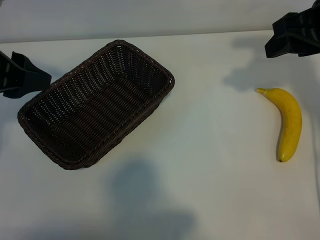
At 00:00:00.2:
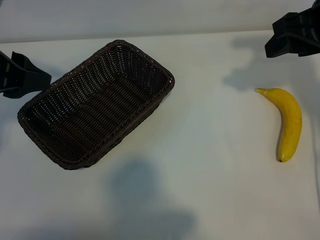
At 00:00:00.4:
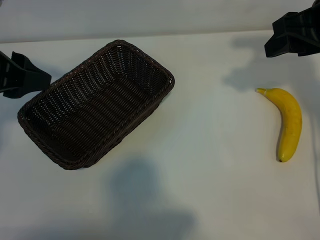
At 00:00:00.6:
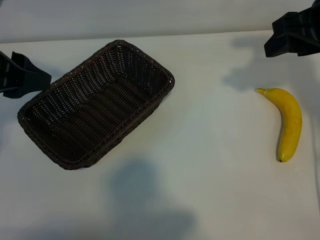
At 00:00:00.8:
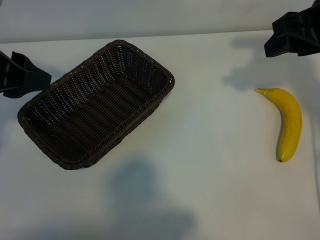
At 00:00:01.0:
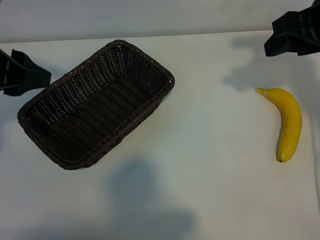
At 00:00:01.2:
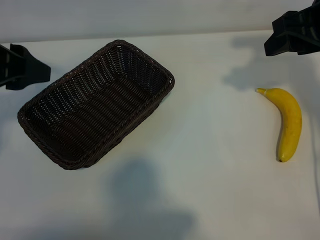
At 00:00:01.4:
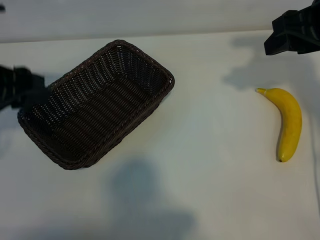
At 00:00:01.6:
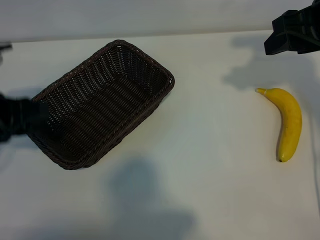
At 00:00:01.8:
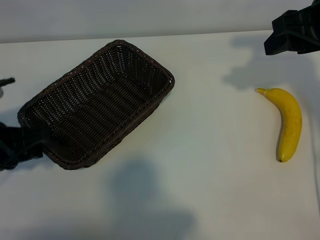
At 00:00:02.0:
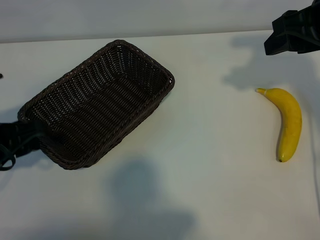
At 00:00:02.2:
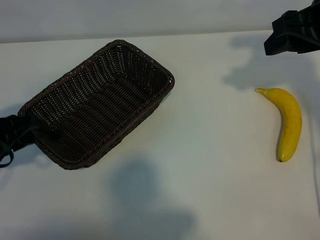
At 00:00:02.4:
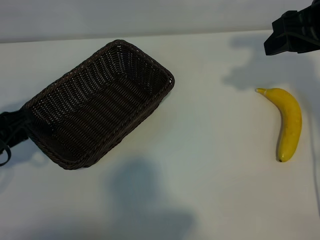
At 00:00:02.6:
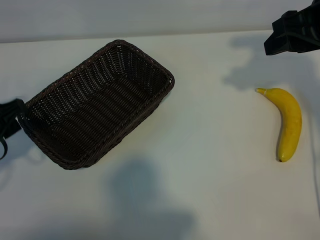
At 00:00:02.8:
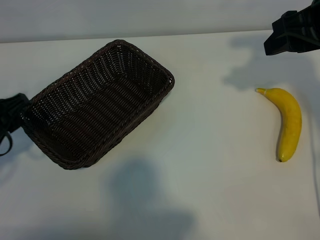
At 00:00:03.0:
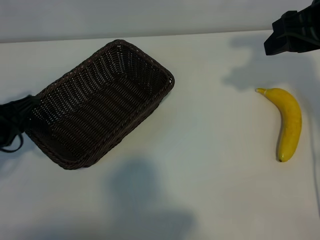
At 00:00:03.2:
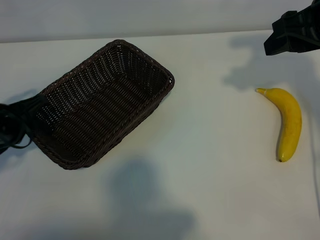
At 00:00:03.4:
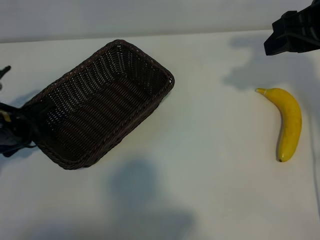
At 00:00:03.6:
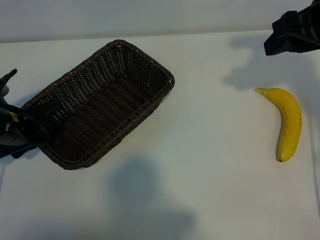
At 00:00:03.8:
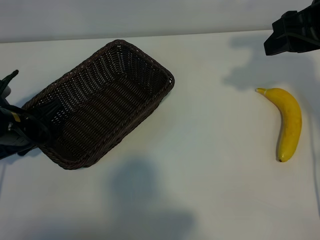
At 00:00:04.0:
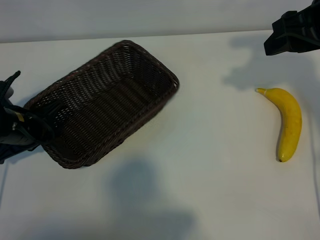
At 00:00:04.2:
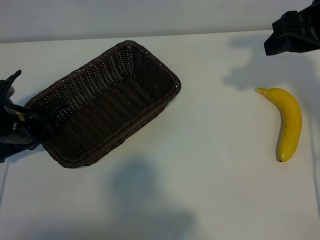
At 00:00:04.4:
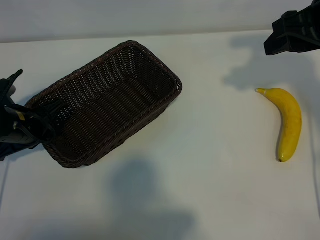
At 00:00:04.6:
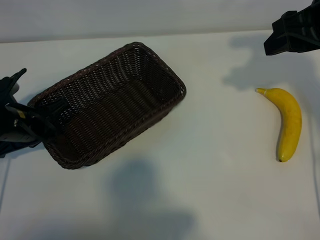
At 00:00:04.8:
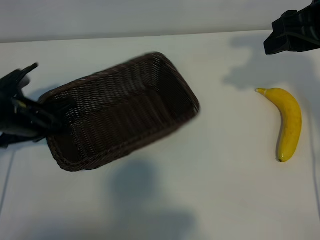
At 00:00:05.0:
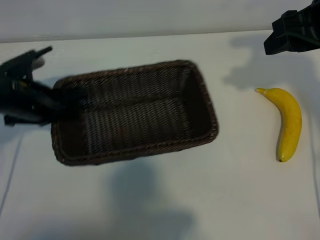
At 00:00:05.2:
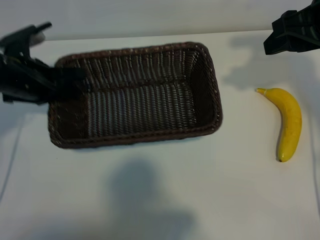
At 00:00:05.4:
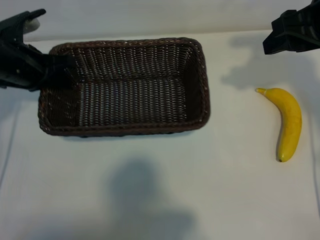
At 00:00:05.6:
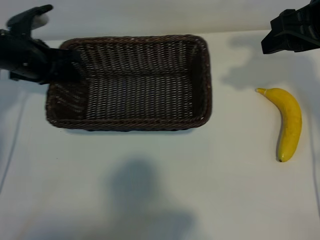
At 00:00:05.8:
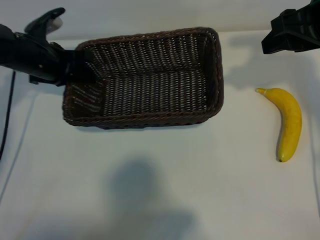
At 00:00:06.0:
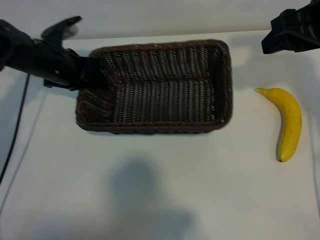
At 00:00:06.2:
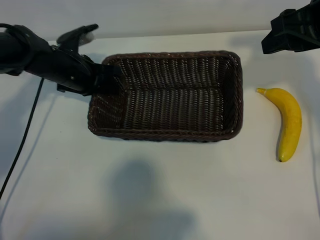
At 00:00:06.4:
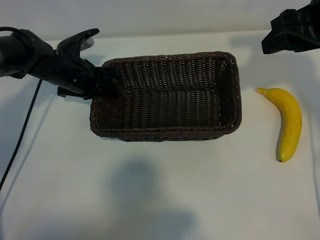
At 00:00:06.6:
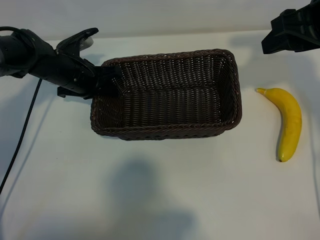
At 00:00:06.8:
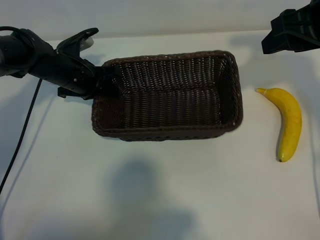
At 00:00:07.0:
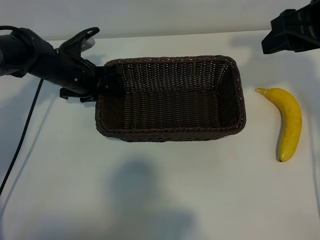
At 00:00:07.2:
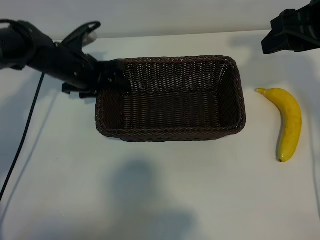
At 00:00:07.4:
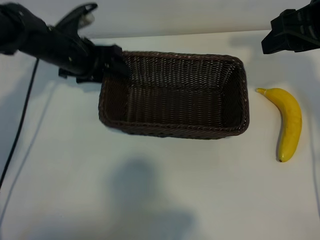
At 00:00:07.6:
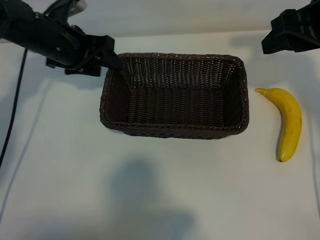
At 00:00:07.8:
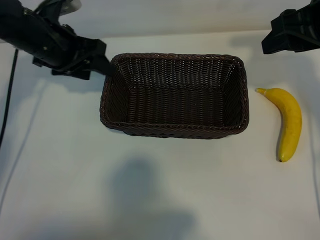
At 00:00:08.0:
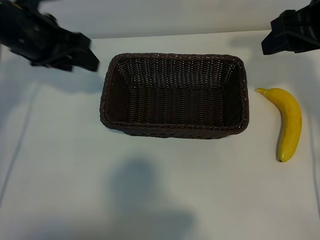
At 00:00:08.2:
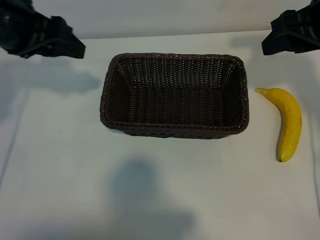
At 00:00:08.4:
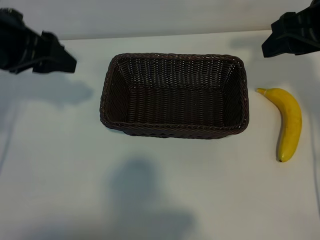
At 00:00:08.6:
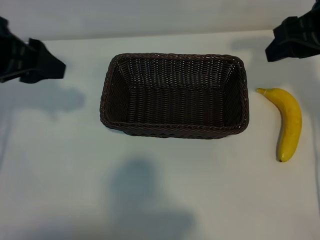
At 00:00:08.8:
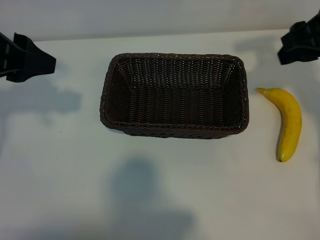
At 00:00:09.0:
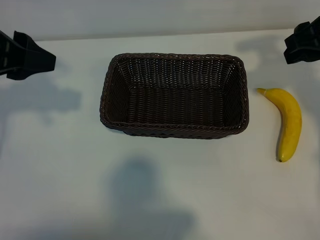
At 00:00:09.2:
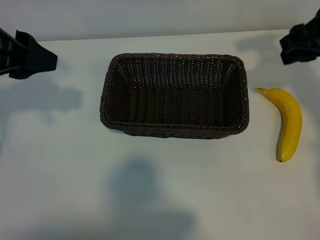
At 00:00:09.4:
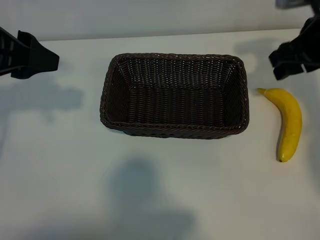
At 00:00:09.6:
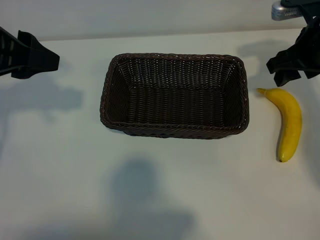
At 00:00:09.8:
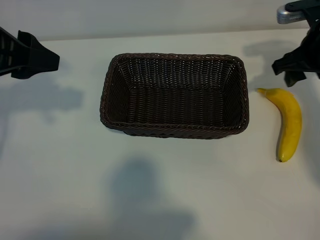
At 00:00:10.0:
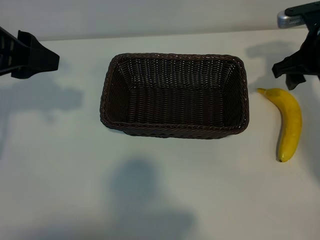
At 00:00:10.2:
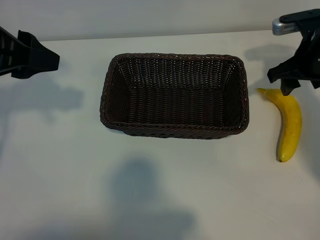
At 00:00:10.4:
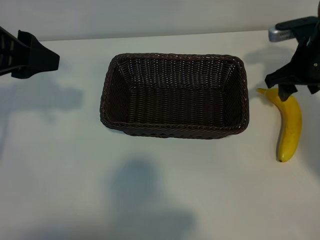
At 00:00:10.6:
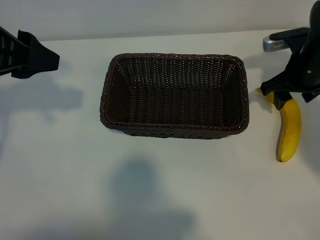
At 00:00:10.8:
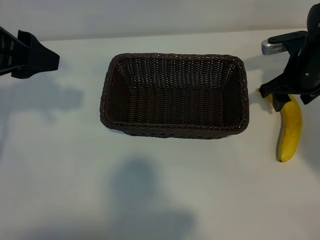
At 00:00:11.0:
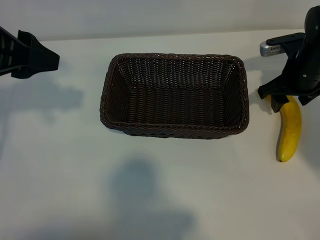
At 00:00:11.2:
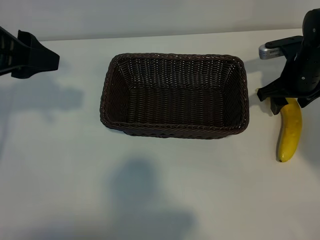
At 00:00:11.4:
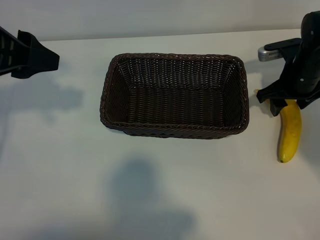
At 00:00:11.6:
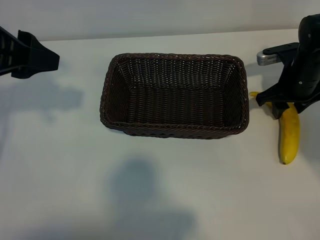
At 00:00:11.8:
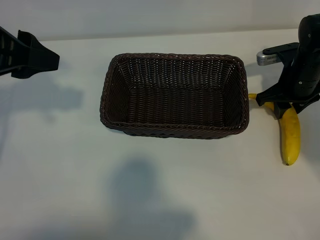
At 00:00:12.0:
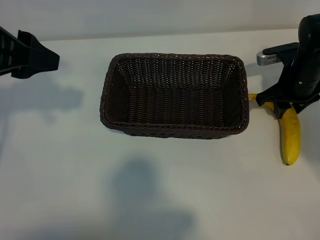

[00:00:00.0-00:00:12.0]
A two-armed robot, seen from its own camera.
Task of the whole recording: pick up the banana and put it into the basket.
Step, 00:00:00.0 to 00:00:04.0: Grasp the basket with the left gripper.
Step, 00:00:04.2 to 00:00:07.2: Place the basket in the center of the table with the left gripper.
Step, 00:00:07.4 to 00:00:11.8: Grasp the banana with right gripper.

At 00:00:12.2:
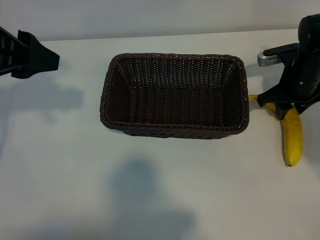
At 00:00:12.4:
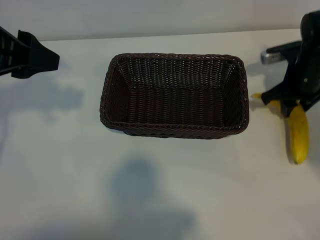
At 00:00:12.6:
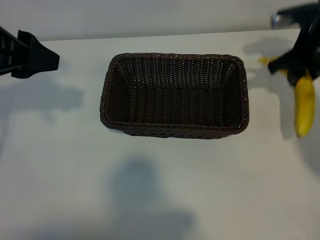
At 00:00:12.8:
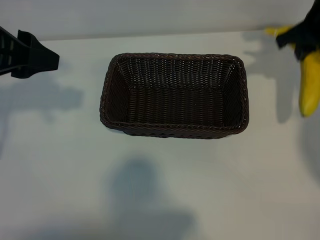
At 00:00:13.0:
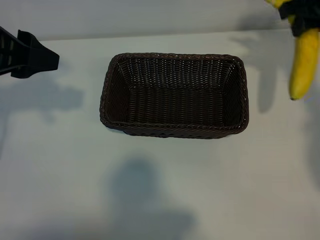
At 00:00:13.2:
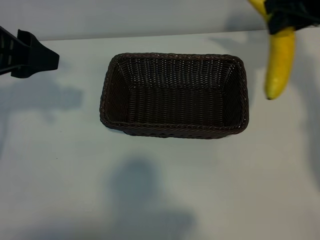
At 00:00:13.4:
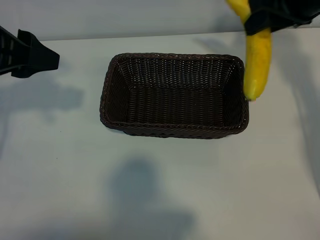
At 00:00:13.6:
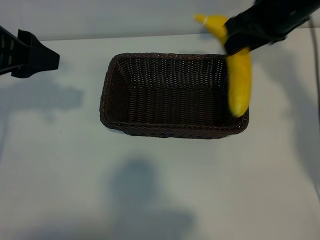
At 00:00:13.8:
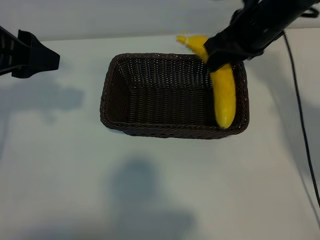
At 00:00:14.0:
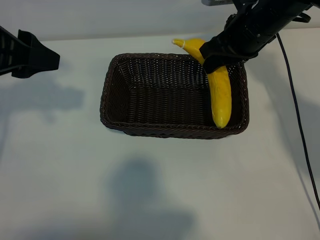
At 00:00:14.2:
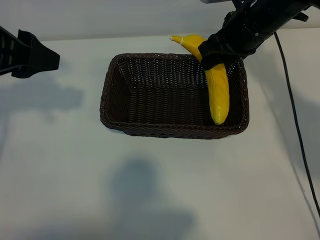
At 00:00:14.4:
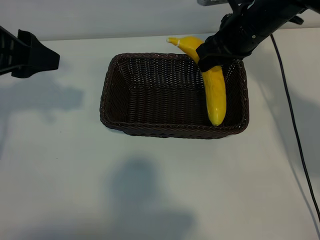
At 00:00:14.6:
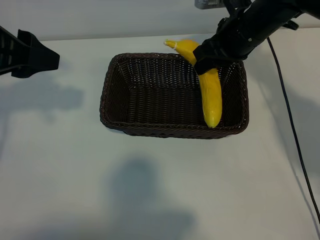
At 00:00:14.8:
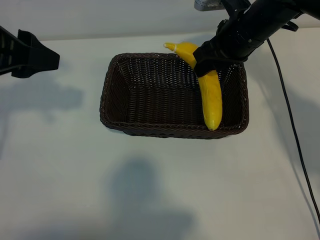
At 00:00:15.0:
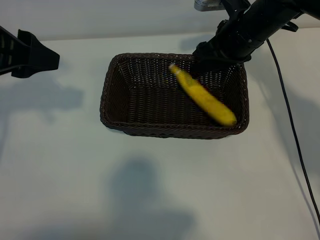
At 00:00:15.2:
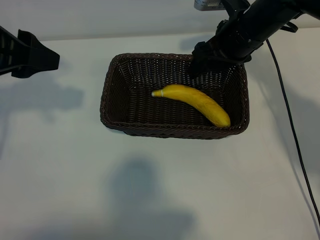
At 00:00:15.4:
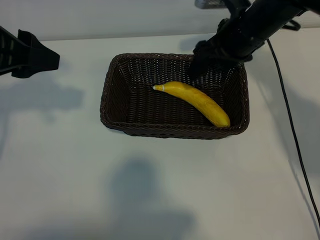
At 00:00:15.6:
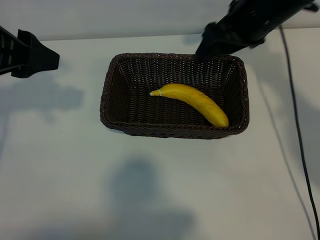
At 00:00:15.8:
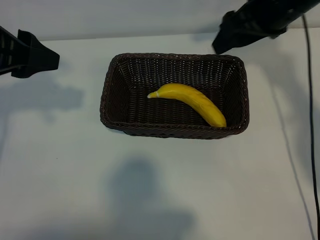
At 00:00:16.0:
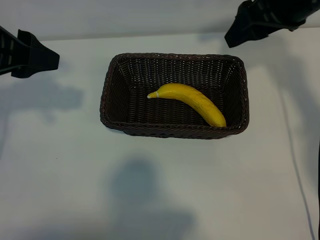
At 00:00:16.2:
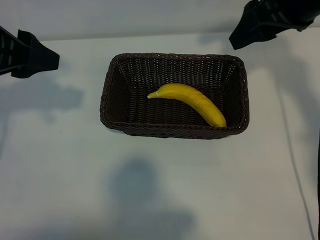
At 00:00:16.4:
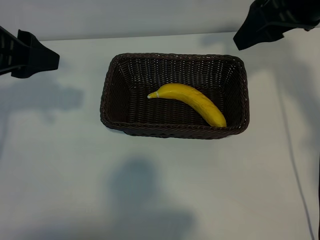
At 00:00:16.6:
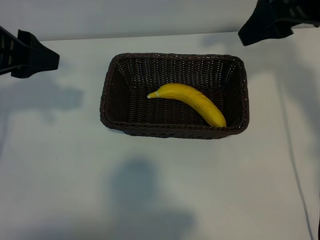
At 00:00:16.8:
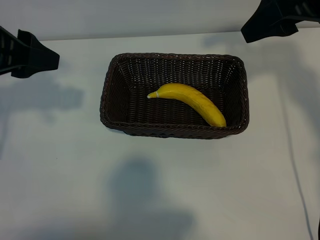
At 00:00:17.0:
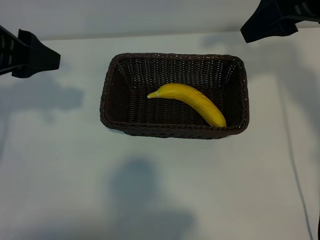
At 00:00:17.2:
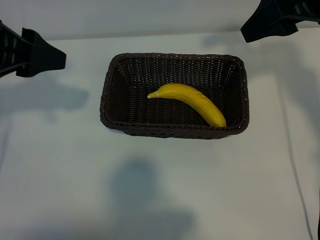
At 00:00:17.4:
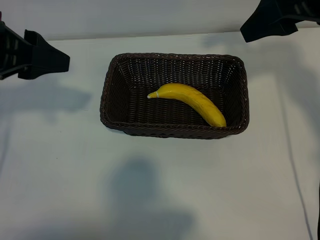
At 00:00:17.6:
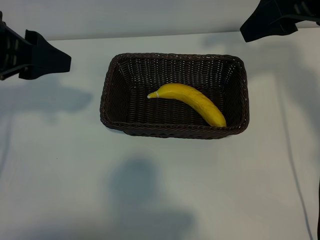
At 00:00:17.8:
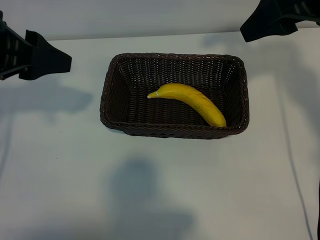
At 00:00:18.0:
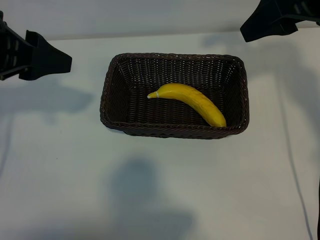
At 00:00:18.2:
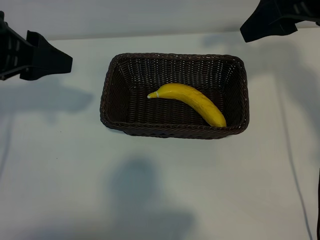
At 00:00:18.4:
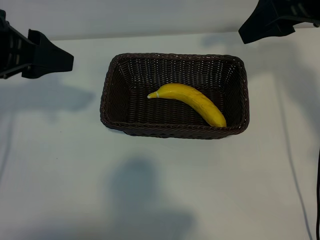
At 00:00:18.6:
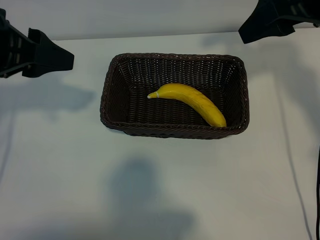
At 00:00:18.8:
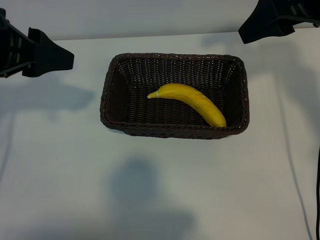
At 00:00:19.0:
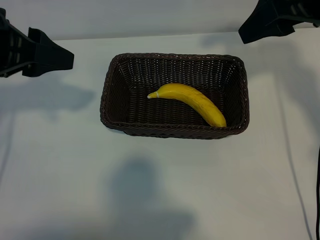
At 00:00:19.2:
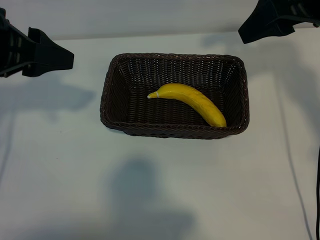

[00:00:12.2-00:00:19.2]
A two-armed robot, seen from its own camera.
Task of the whole recording: pick up the banana and put it into the basket.
Step, 00:00:12.2 to 00:00:15.0: Place the banana in the basket with right gripper.
